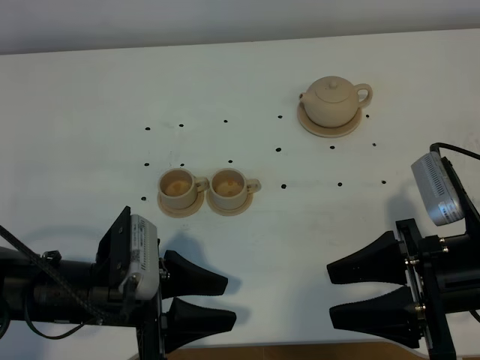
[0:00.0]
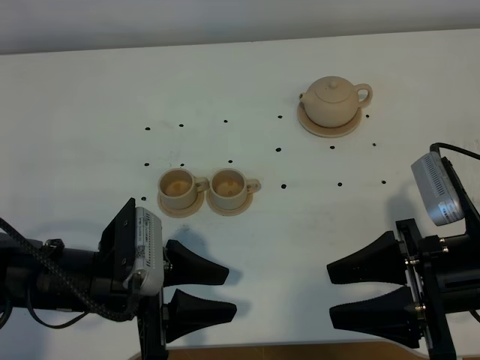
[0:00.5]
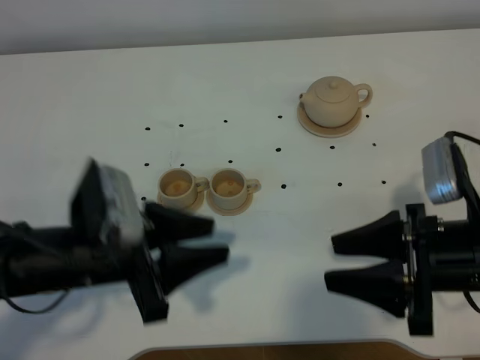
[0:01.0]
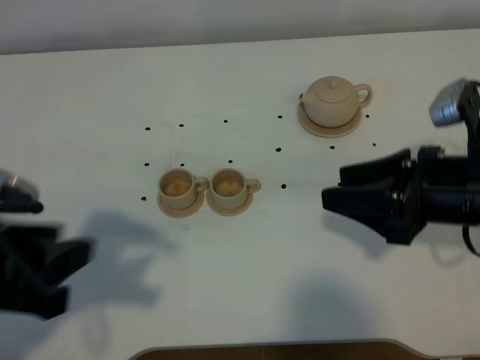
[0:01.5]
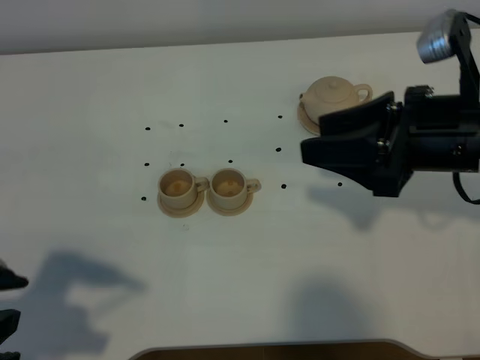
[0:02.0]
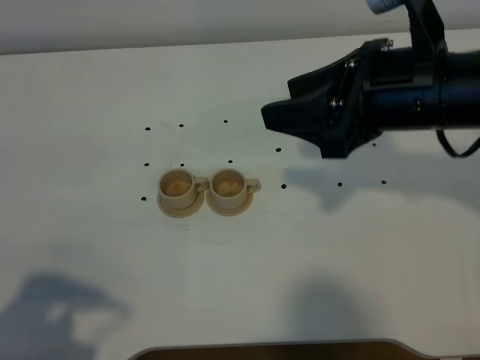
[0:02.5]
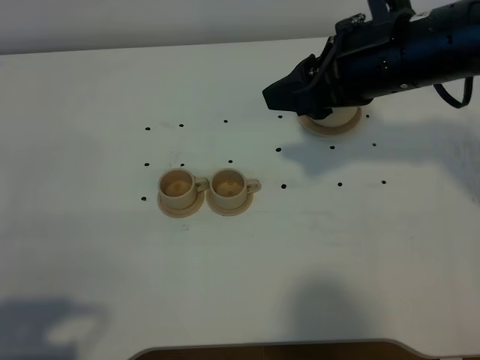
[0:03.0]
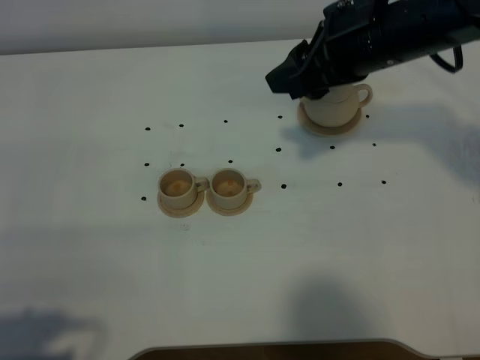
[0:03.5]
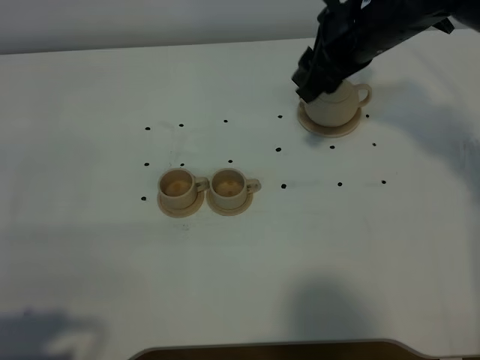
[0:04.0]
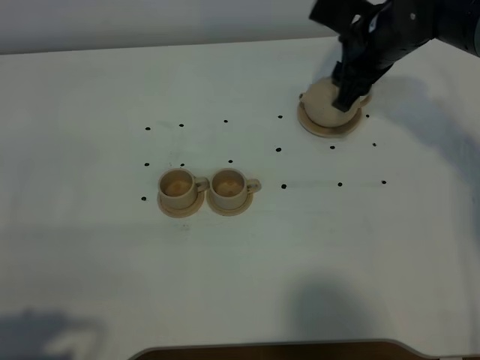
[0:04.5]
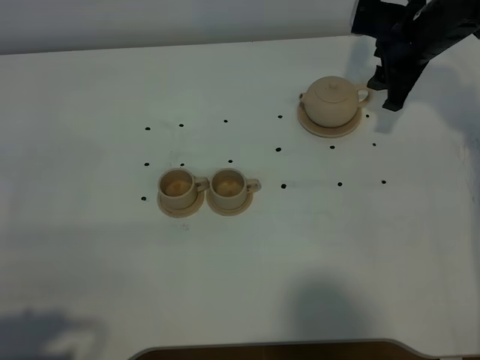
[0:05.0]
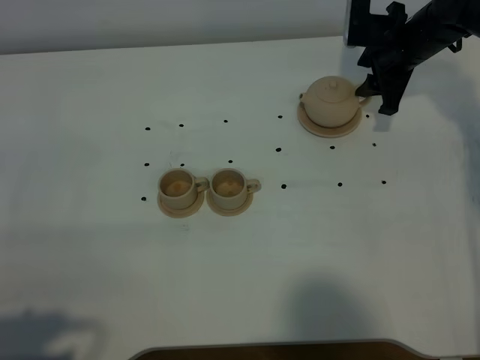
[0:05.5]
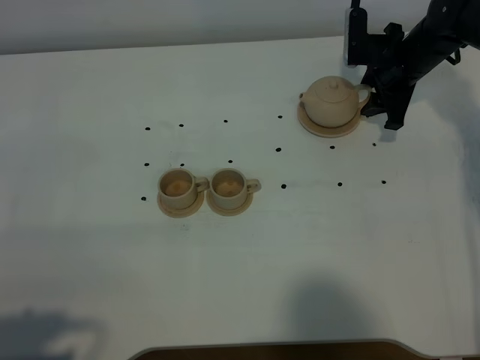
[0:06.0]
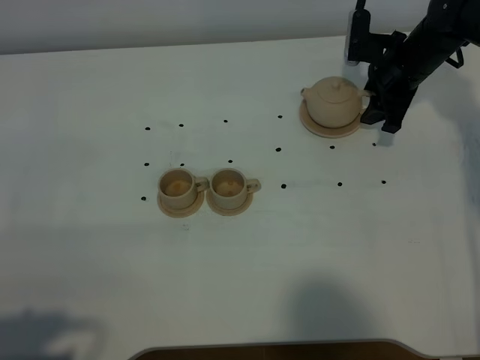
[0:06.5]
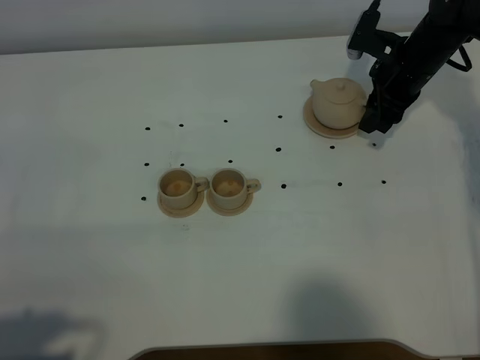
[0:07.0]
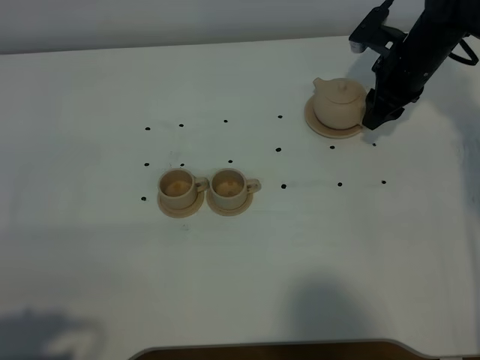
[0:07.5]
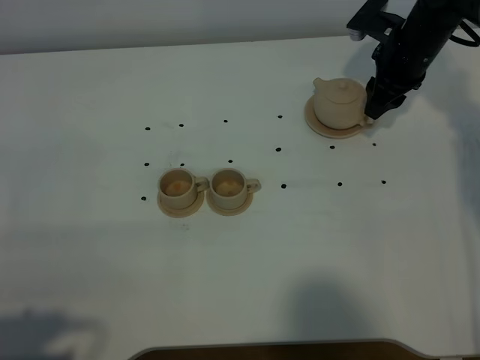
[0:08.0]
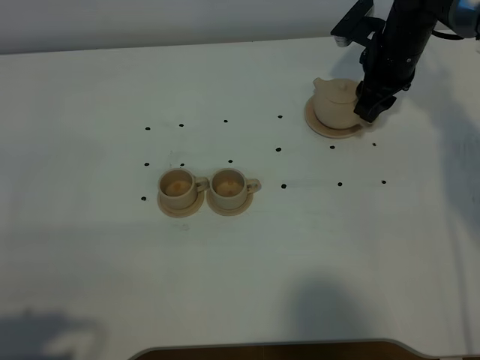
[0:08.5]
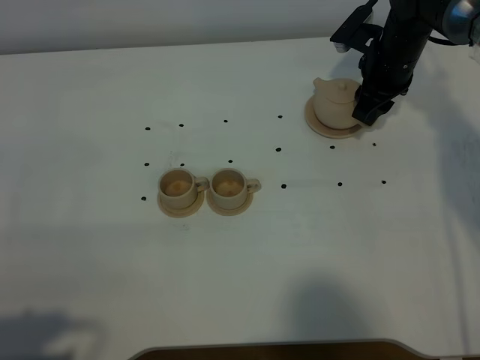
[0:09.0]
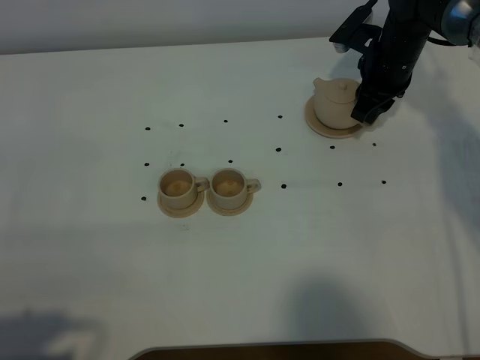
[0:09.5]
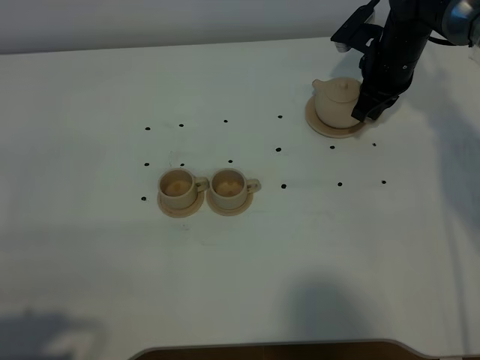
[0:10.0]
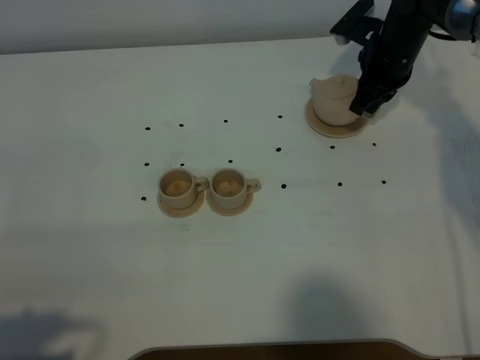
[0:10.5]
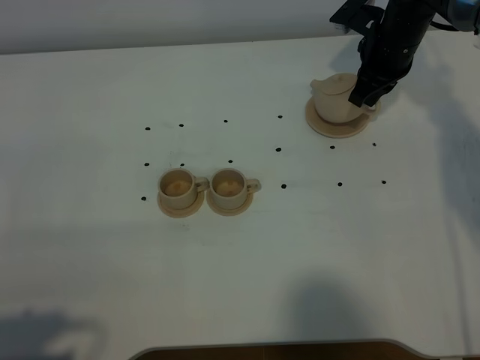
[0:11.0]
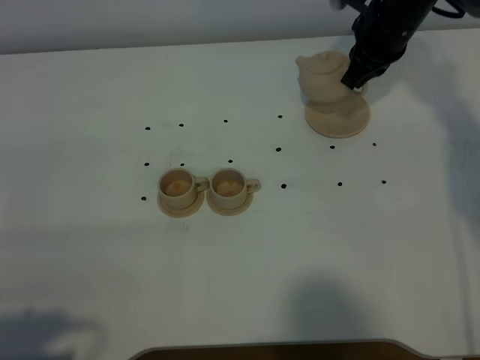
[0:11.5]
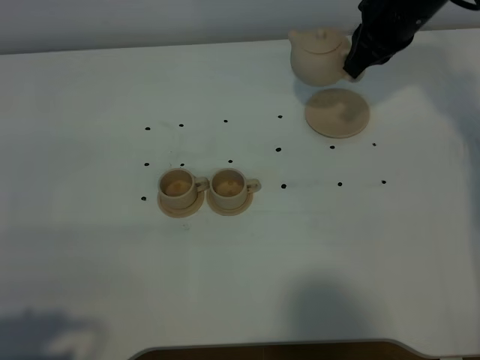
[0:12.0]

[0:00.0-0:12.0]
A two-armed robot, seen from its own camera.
Task of the whole recording: grasp the brown teapot and pour the tea into the two brown teacups one by one, put the brown teapot back in its original place.
Step, 0:00.0 to 0:11.0: Pick up the teapot with the right gripper.
0:00.0 to 0:02.0: The right gripper shifts roughly 10 cm forward and upward, while the left gripper moves upward, to the left and backward, roughly 15 cm.
0:02.0 to 0:04.0: The left gripper goes about 10 cm backward. Meanwhile the right gripper travels forward by roughly 15 cm.
0:04.0 to 0:06.0: The right gripper is displaced downward, to the right and forward by some 20 cm.
0:08.0 to 0:10.0: The right gripper closes up.
0:10.0 to 0:12.0: The right gripper moves upward, roughly 10 cm.

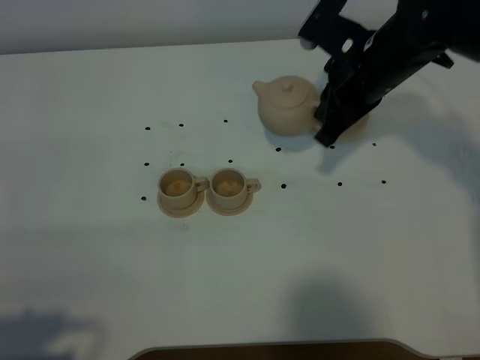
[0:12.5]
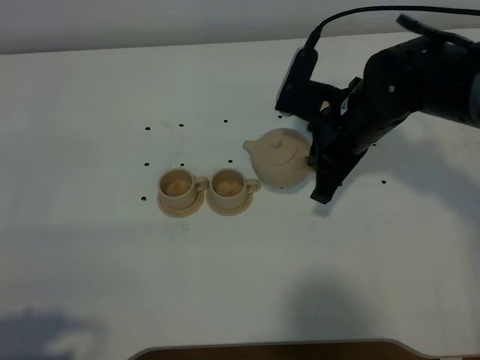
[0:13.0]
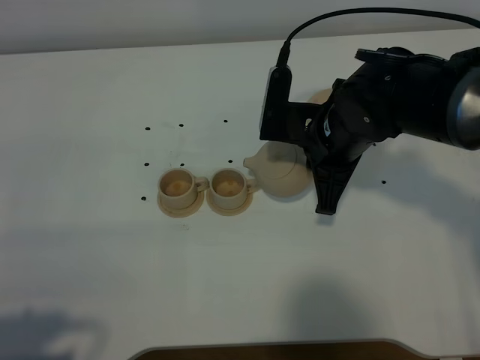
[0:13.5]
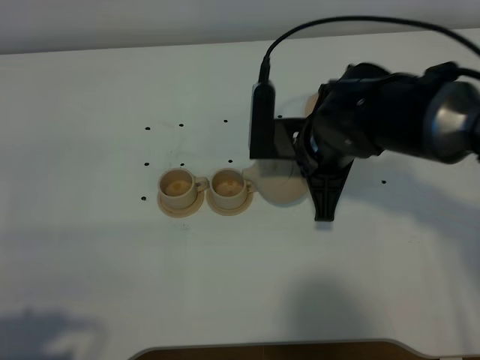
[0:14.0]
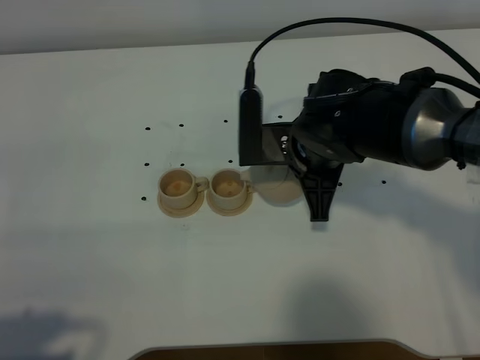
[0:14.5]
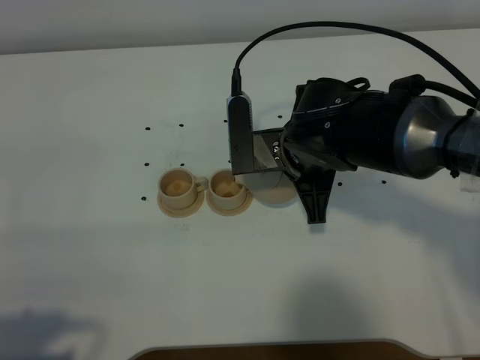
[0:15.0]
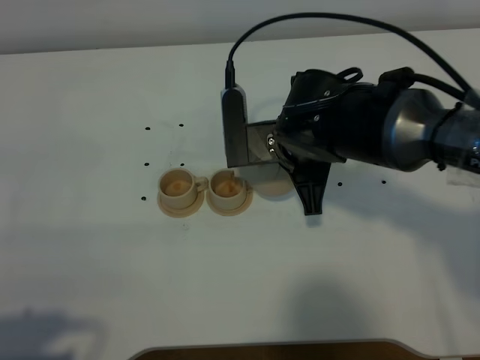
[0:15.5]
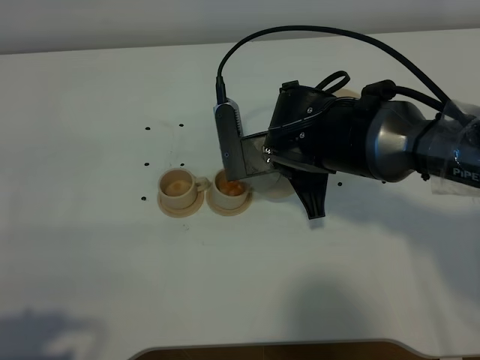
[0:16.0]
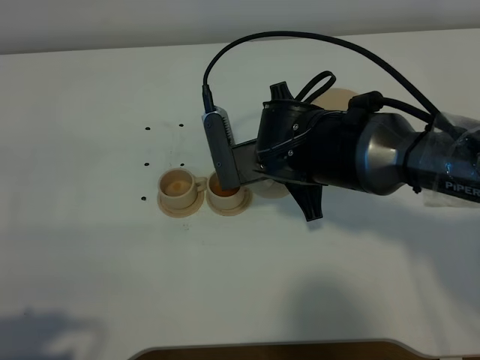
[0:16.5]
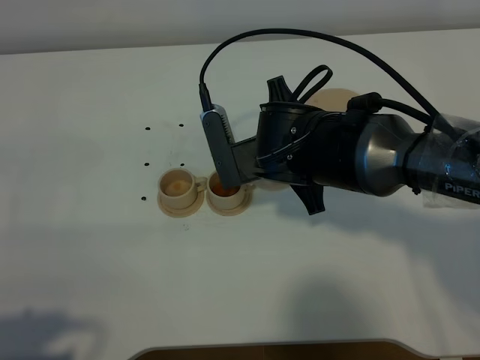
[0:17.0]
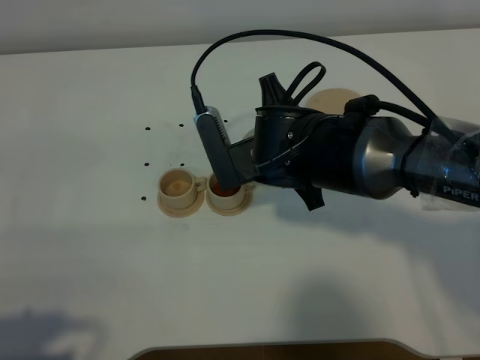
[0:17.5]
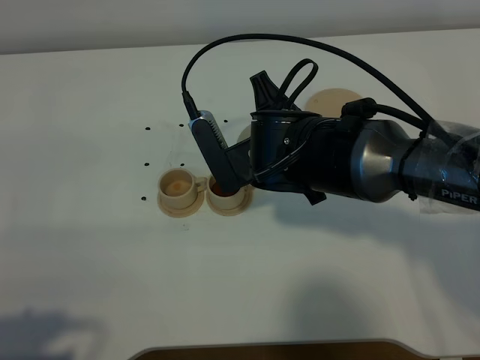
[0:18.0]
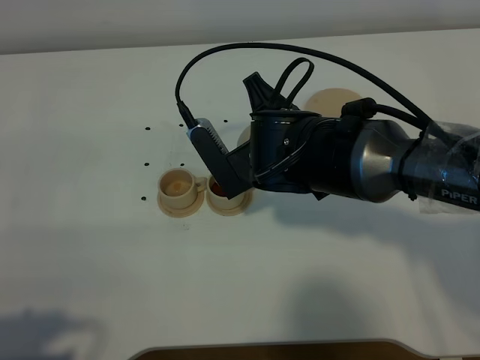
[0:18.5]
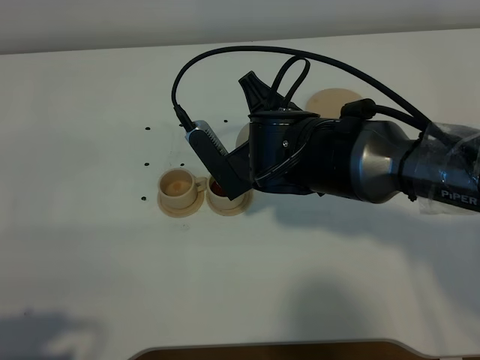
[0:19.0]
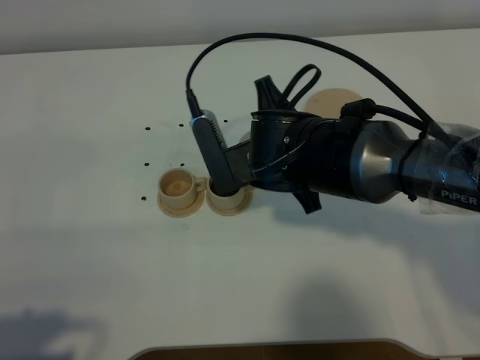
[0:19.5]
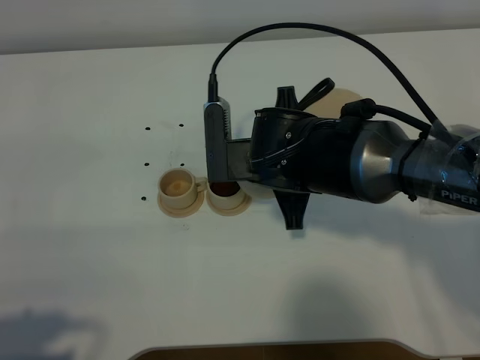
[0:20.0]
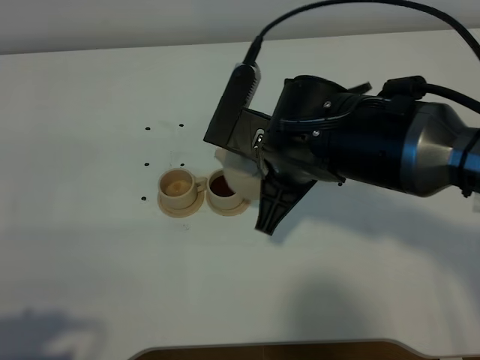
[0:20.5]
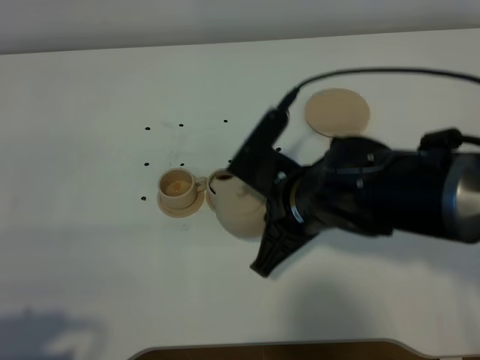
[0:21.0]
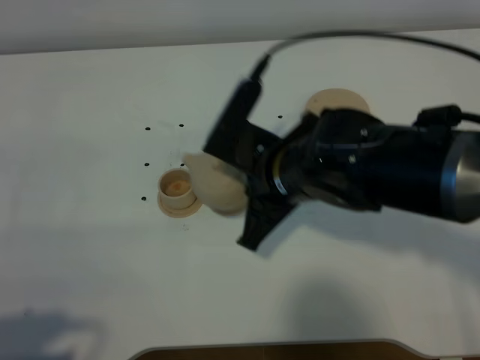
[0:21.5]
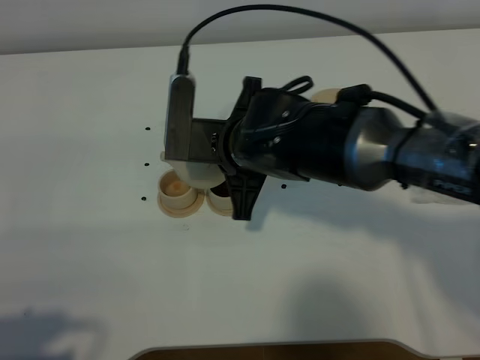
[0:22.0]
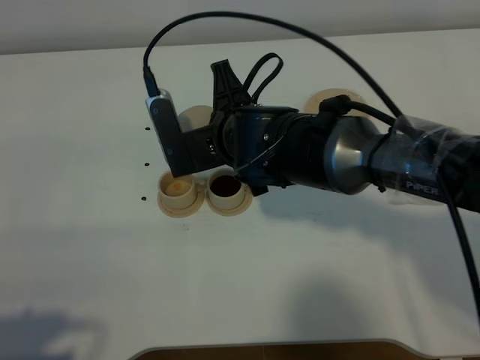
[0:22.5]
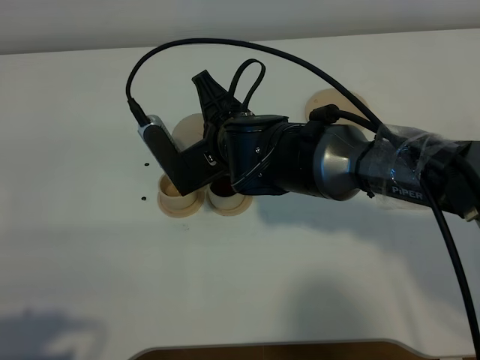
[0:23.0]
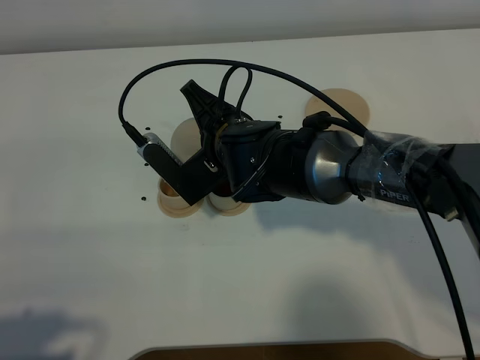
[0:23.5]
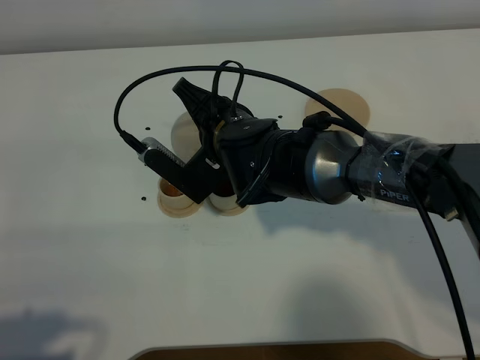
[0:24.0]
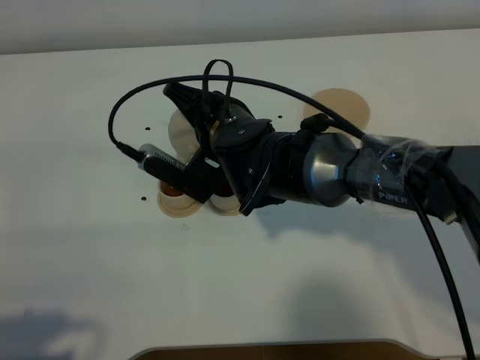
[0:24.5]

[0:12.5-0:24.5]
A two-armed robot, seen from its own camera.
Task of the whole recording: grasp the brown teapot and pour the tea into the two brown teacups one by one, put the brown teapot back in its original place.
Step, 0:12.5 to 0:20.0: Pour tea into the teacup with the right gripper.
0:12.5 to 0:14.5: The right gripper goes some 10 cm to the left and backward.
0:14.5 to 0:16.5: The grippers make only small movements.
0:16.5 to 0:18.5: The grippers make only small movements.
0:20.5 to 0:22.5: The right gripper is displaced forward by roughly 5 cm.

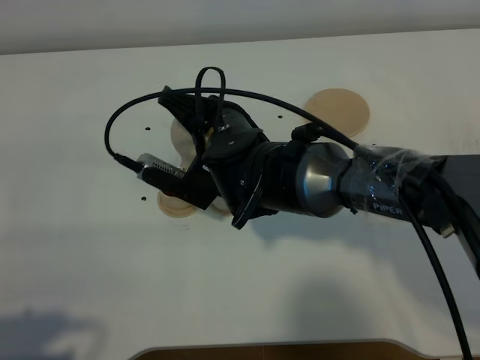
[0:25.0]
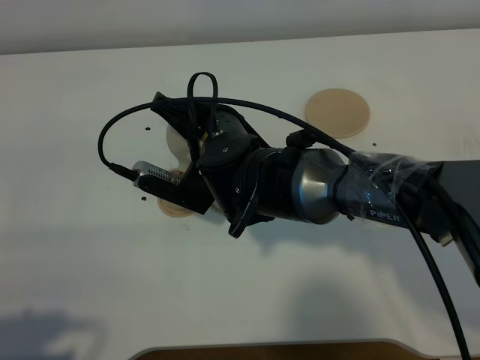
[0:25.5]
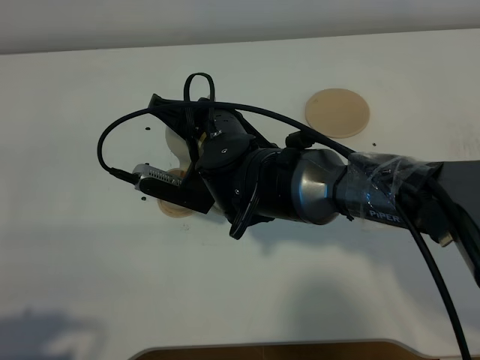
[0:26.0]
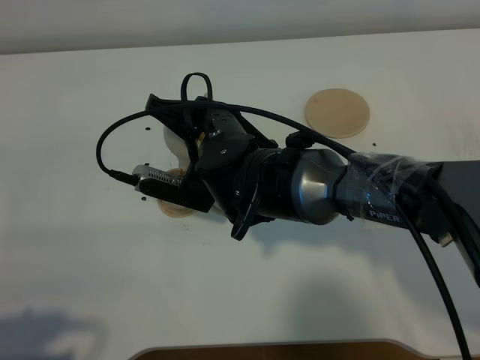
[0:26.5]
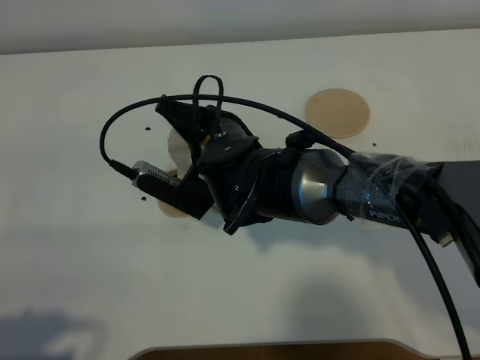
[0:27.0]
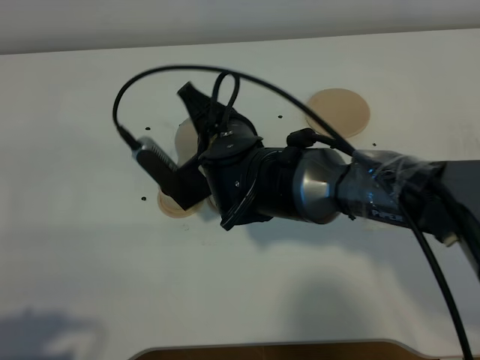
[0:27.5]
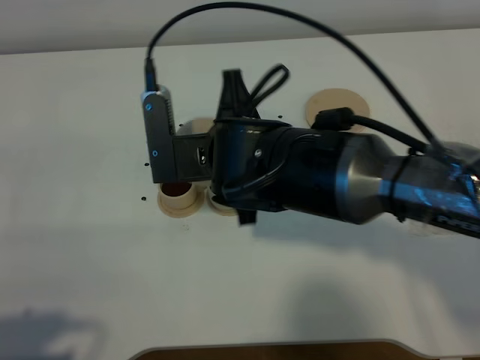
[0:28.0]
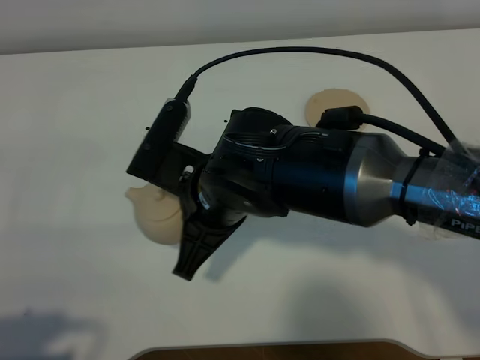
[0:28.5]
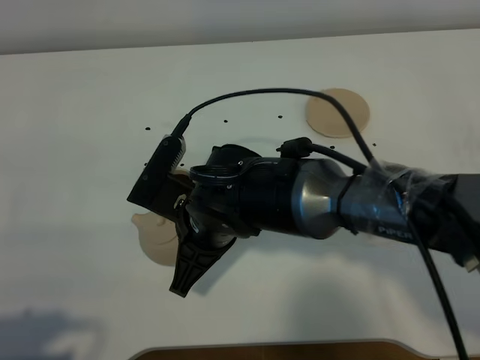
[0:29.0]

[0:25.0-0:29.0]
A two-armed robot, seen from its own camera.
Task of the whole recording: grasp the brown teapot and pour the tea into the two brown teacups one by one, put the brown teapot back in its original place.
Step, 0:25.0 to 0:27.5: Pour tea into the teacup with the right gripper.
0:25.0 to 0:27.0: The grippers stay close to where they were, moving slightly.
0:27.0 to 0:29.0: The right gripper travels backward by roughly 5 cm.
